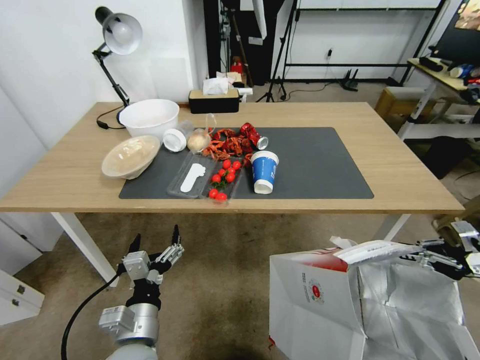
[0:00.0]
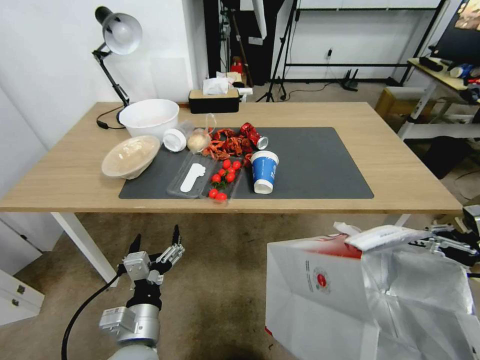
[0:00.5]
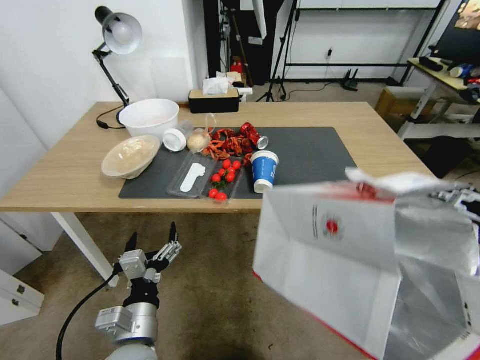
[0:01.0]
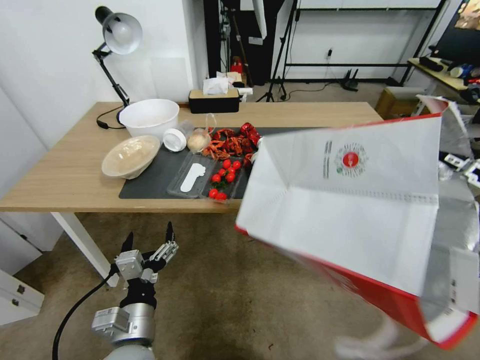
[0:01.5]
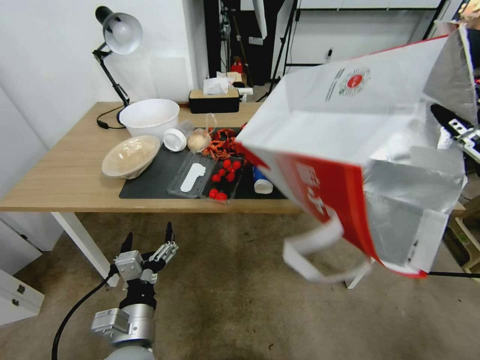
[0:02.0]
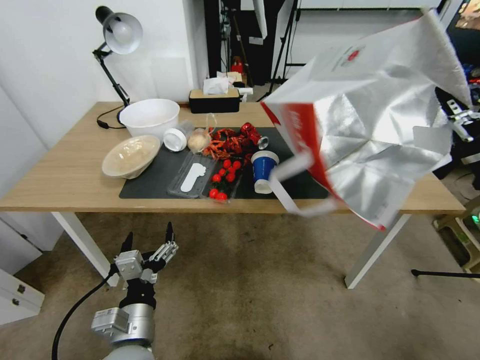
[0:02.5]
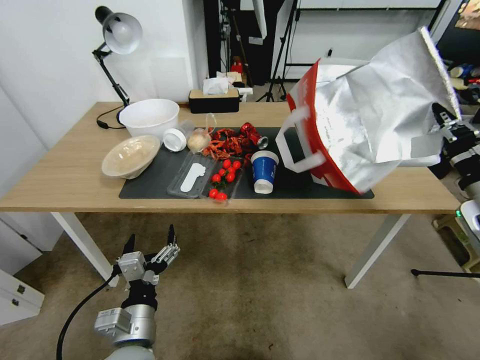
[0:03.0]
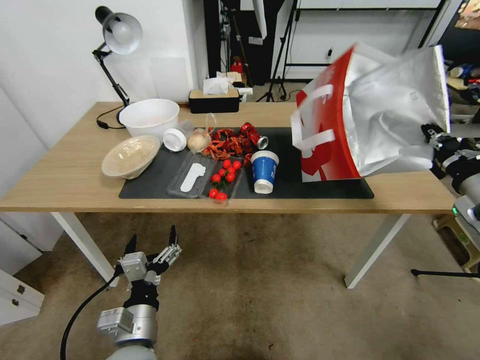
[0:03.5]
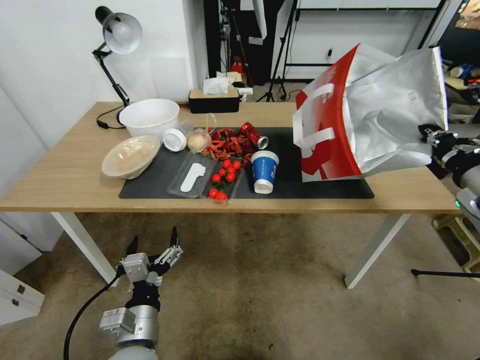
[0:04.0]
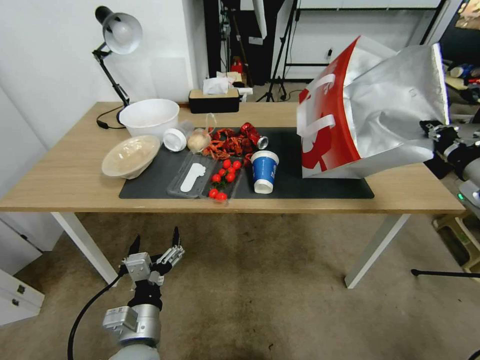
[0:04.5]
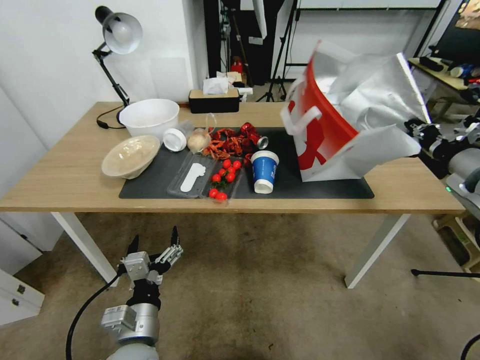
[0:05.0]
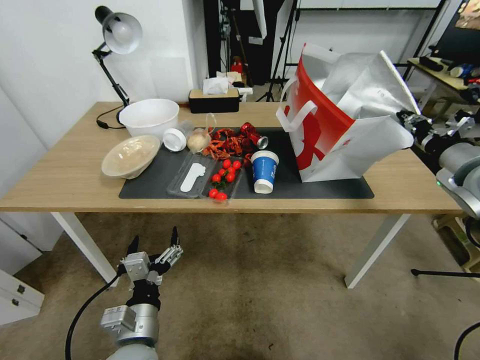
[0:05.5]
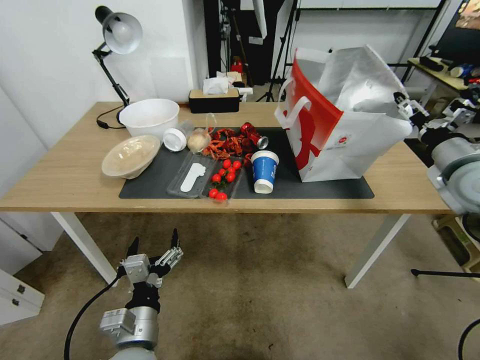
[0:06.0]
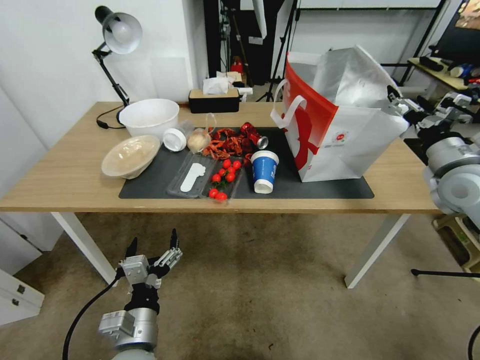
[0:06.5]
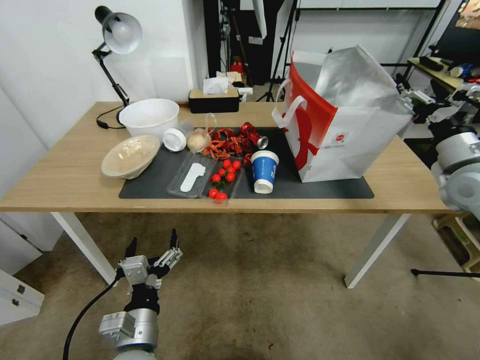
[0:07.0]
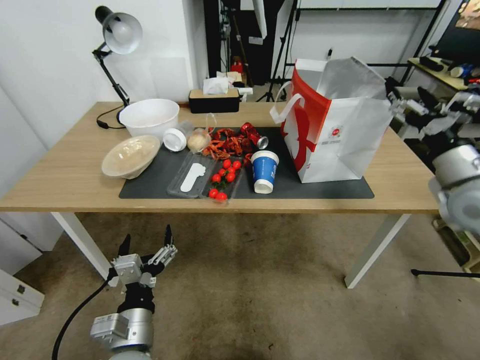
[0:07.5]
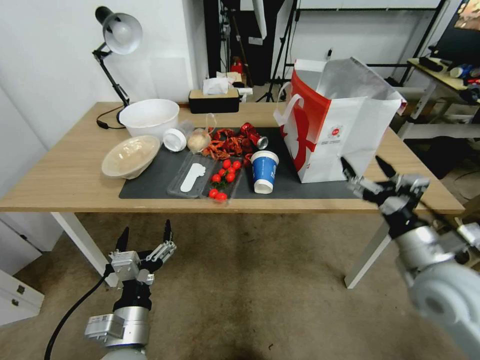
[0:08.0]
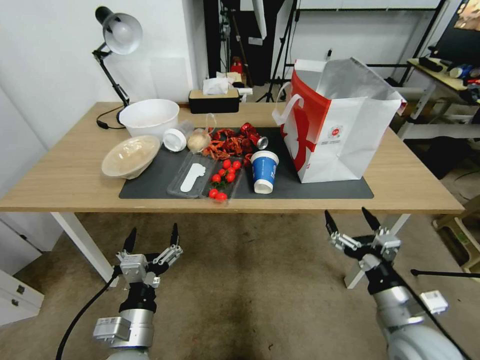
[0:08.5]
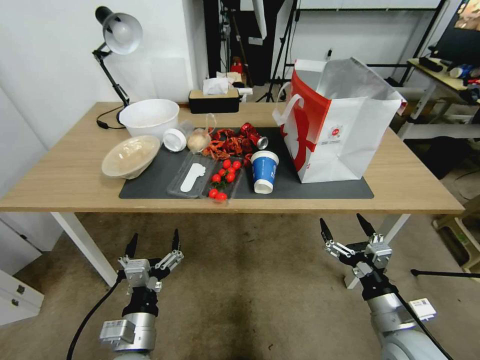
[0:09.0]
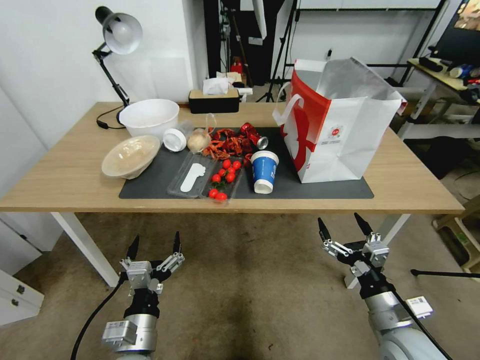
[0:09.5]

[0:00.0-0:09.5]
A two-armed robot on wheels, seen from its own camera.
Task of the whole recording: Pick up the food delivery bag from the floor and place it on the table.
0:00.0 to 0:02.0: The right gripper moves to the left and upward, roughly 10 cm.
0:02.0 to 0:04.0: The right gripper goes roughly 5 cm to the left.
0:04.0 to 0:05.5: The right gripper moves forward, some 5 cm.
0:05.5 to 0:07.5: The right gripper opens up.
0:07.5 to 0:09.5: The right gripper heads downward, backward and to the left, covering roughly 30 cm.

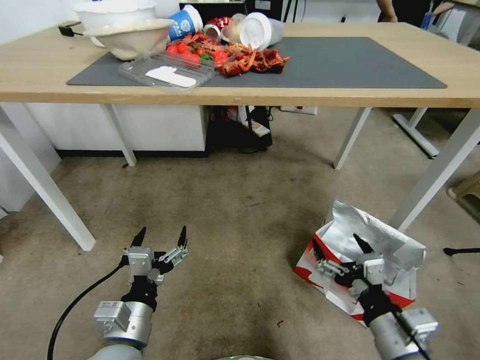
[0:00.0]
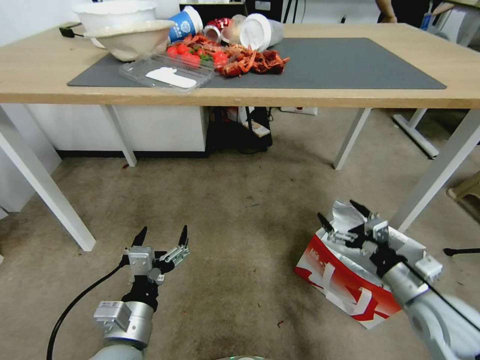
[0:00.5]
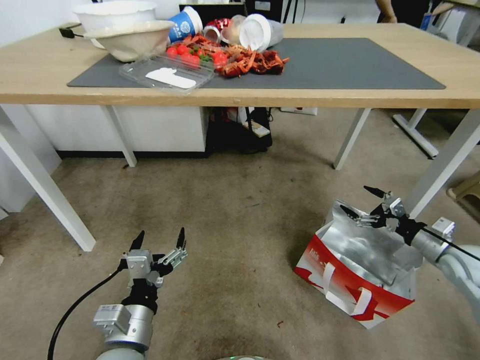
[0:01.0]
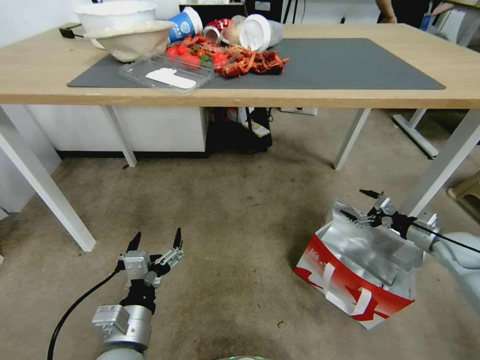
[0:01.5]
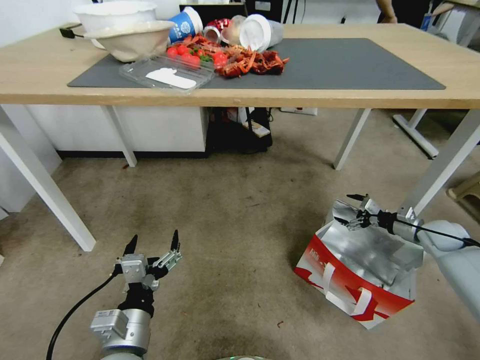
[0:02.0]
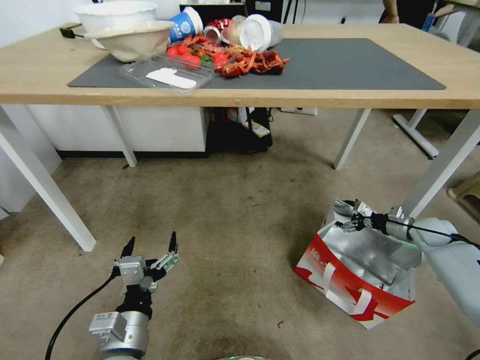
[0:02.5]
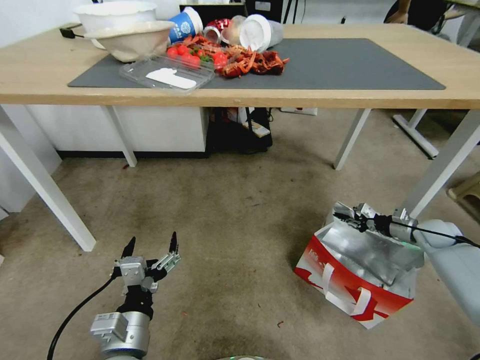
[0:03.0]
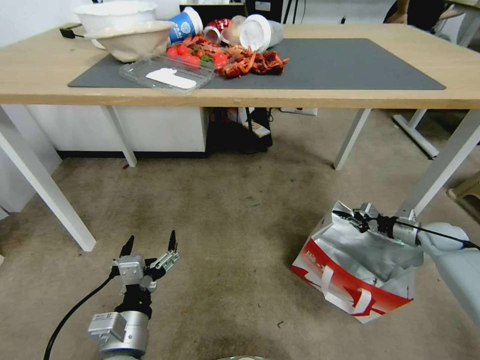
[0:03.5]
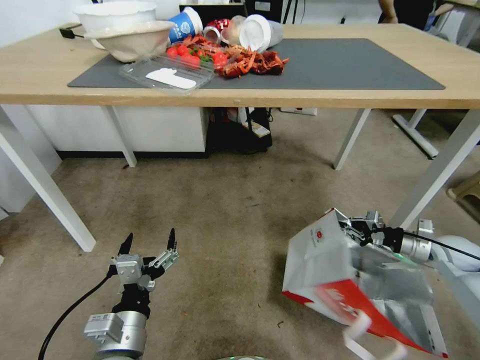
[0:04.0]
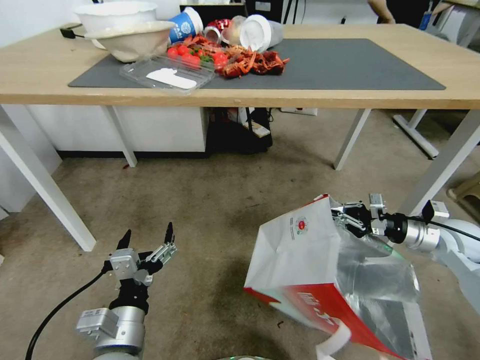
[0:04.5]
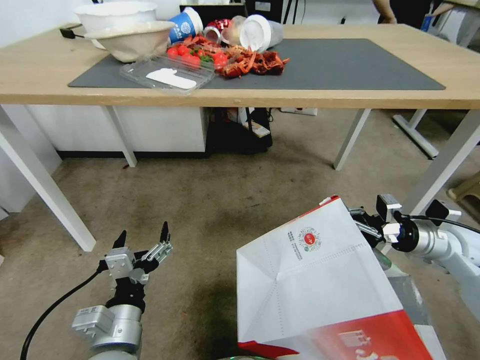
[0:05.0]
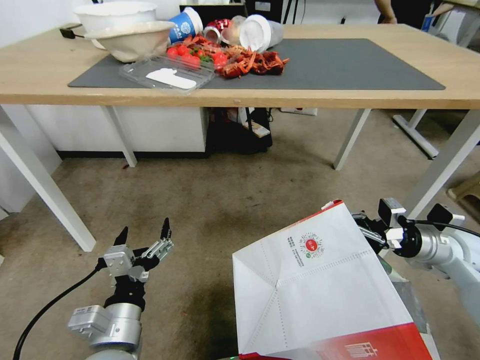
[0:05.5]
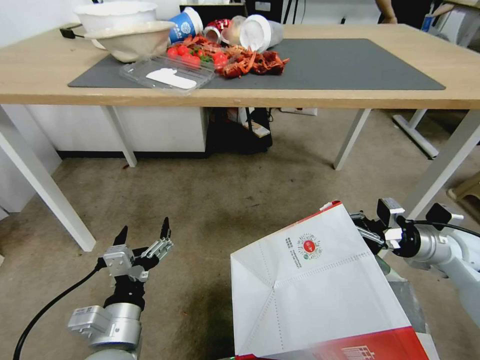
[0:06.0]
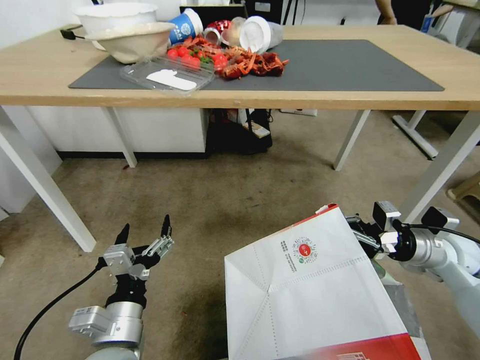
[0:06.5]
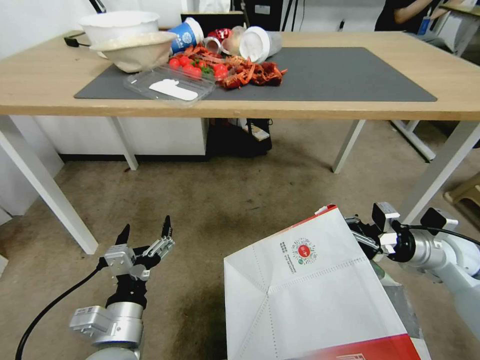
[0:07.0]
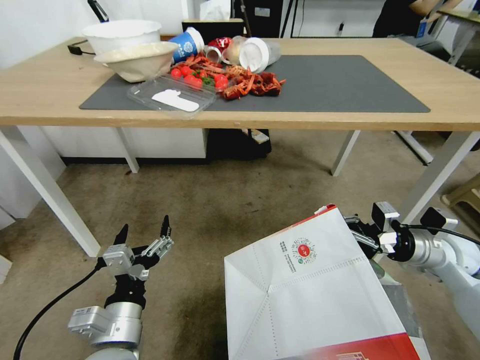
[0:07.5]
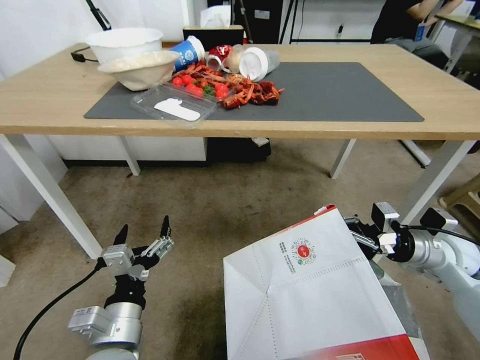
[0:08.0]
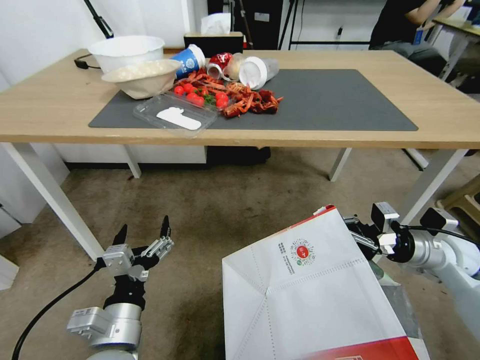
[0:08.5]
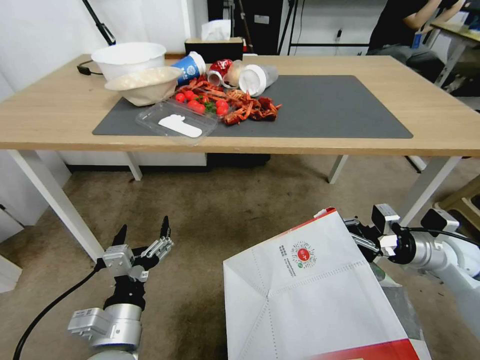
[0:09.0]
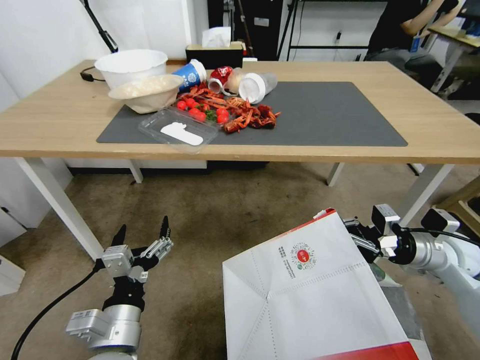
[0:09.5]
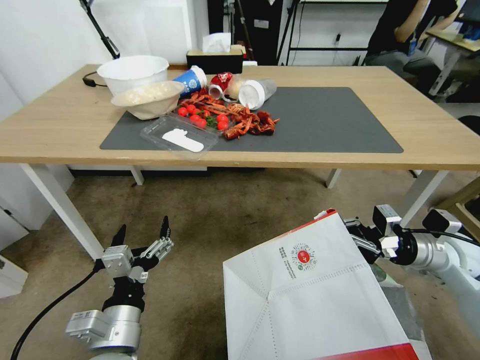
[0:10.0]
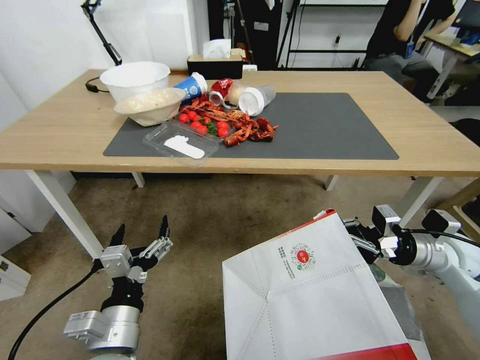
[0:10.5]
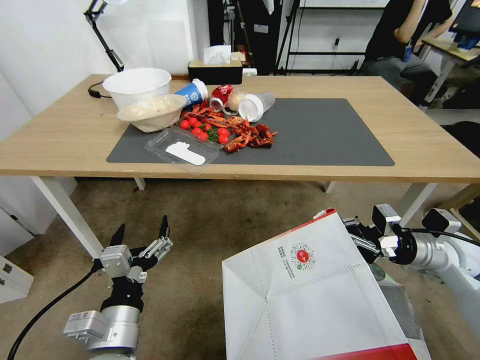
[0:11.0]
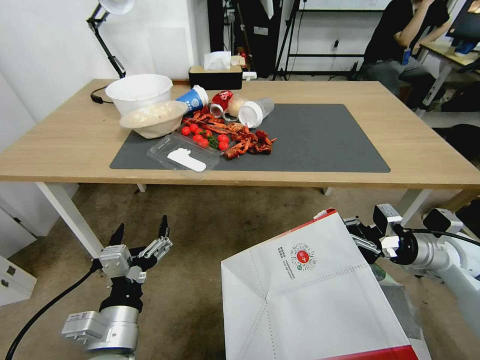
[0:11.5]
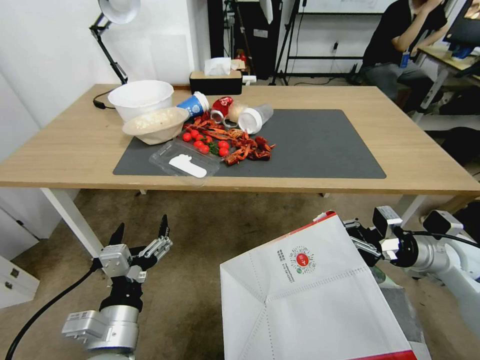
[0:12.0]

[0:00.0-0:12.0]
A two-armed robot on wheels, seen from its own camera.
Task of the whole recording: Pick up the food delivery bag from the floor and place it on the table.
0:00.0 to 0:02.0: The right gripper moves to the right and forward, roughly 35 cm.
0:02.0 to 0:04.0: The right gripper closes up.
0:04.0 to 0:06.0: The right gripper moves upward and to the left, about 15 cm.

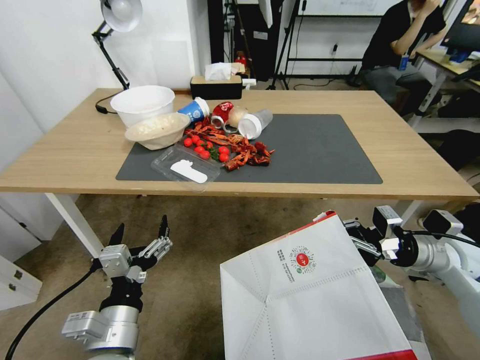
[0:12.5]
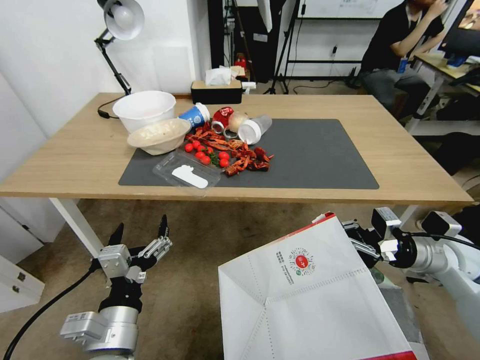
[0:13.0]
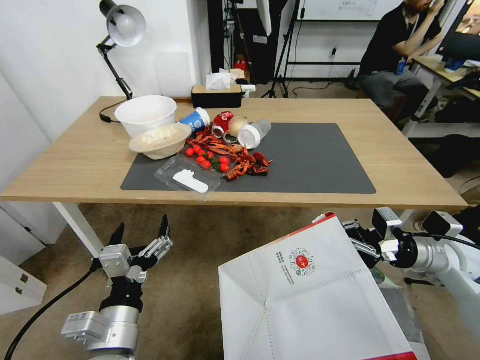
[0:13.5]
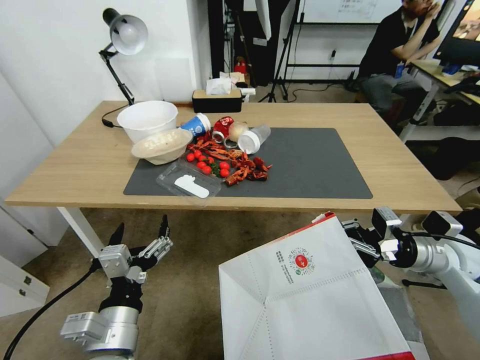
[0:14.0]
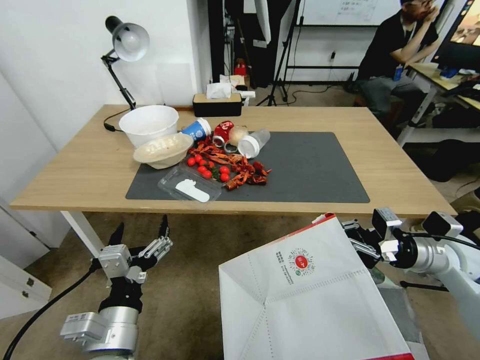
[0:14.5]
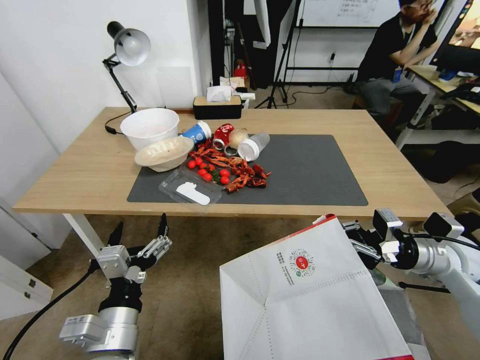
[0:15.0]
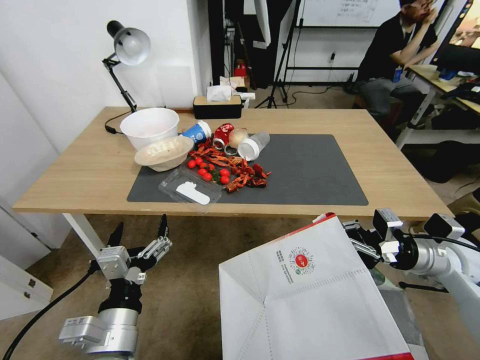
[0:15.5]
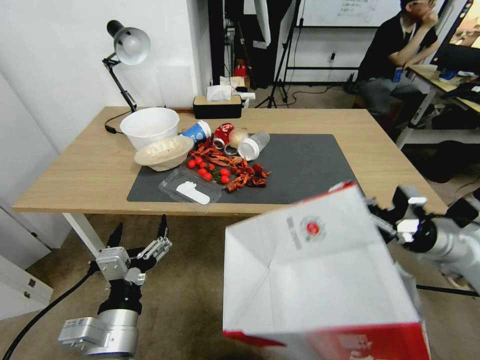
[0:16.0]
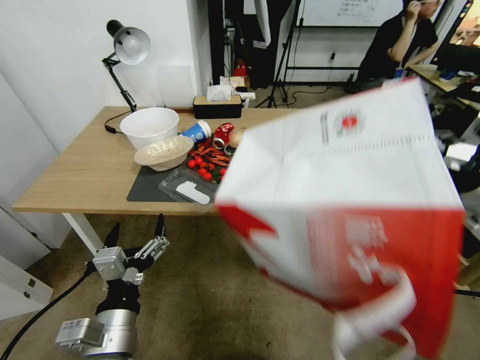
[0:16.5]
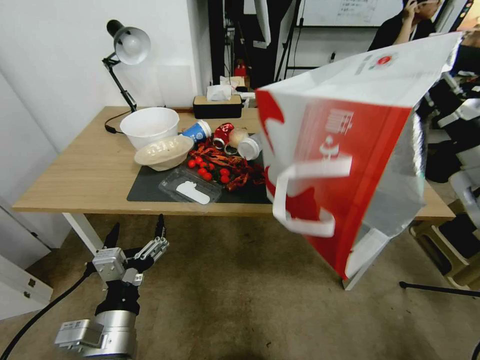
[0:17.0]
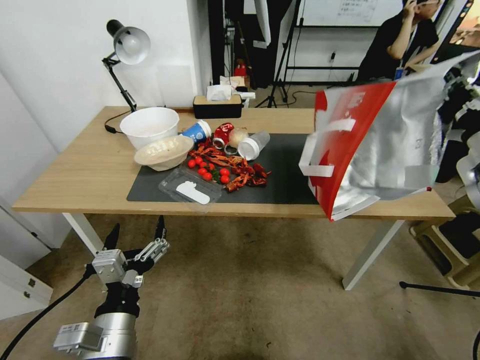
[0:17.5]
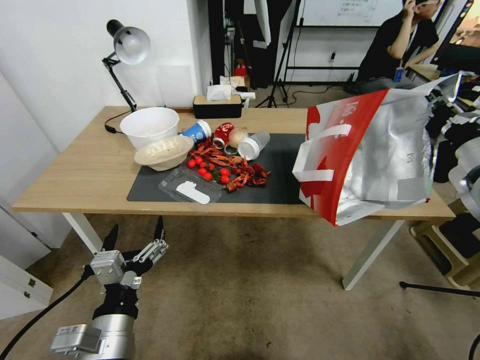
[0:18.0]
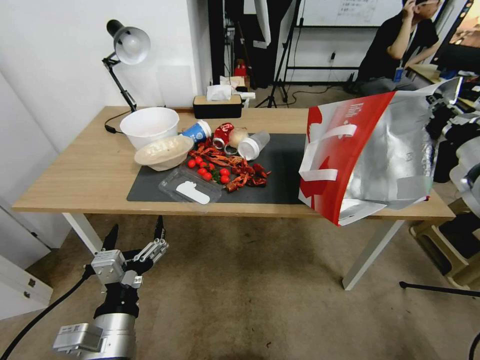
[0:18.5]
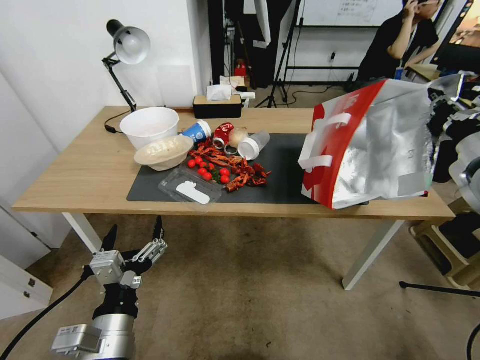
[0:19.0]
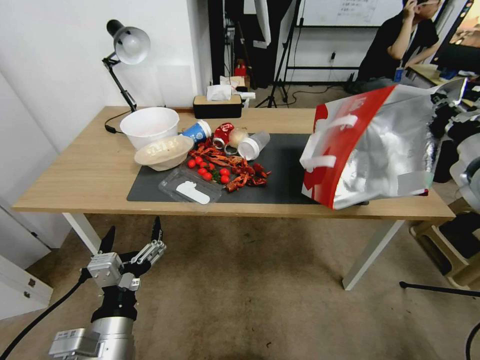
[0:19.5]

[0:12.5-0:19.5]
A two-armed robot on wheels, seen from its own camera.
Task of the whole recording: Pick up the food delivery bag from the floor and place it on the table.
0:16.0 to 0:17.5: The right gripper travels upward by about 15 cm.
0:17.5 to 0:19.5: There are only small adjustments of the grippers.
